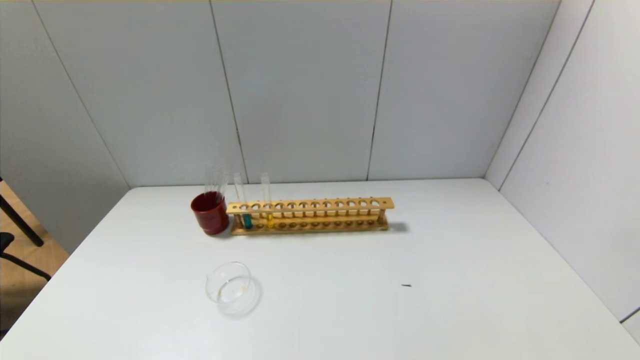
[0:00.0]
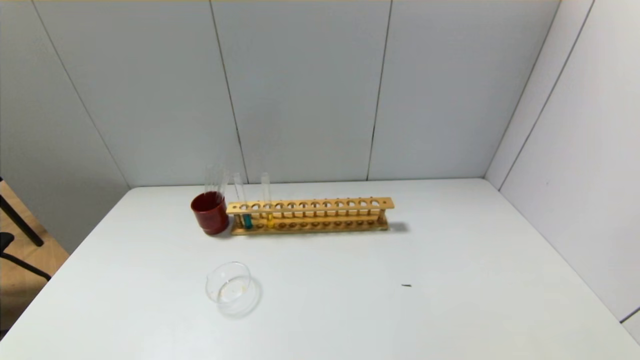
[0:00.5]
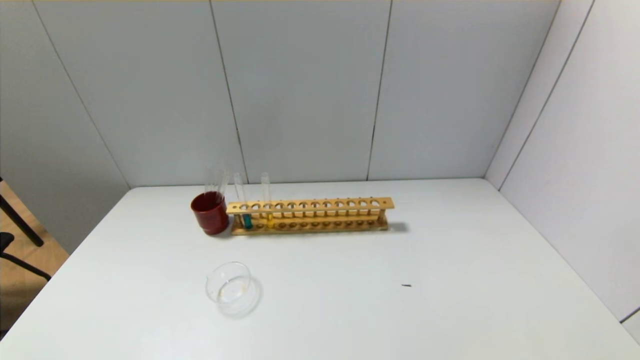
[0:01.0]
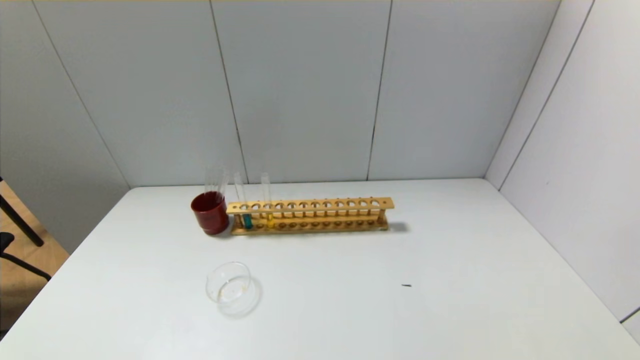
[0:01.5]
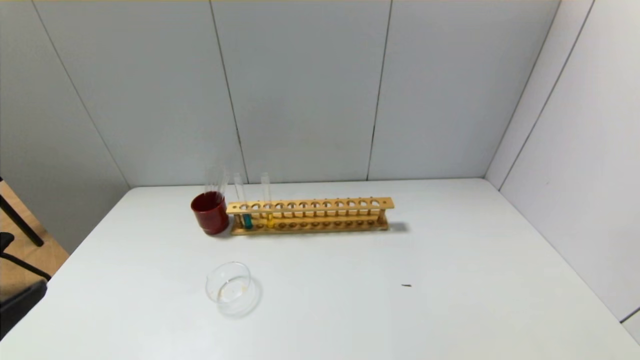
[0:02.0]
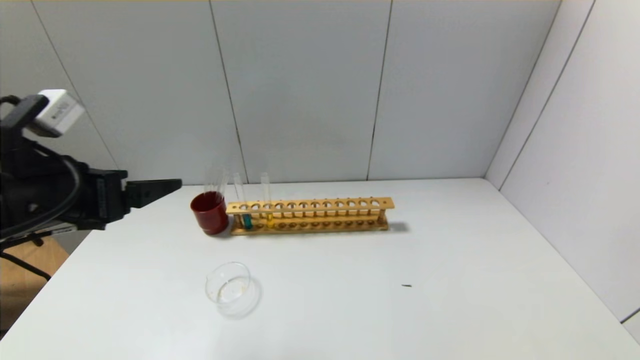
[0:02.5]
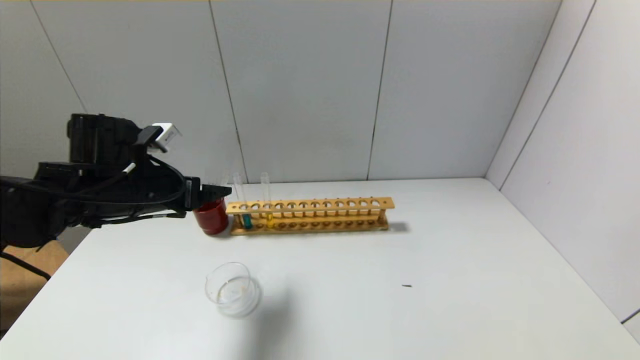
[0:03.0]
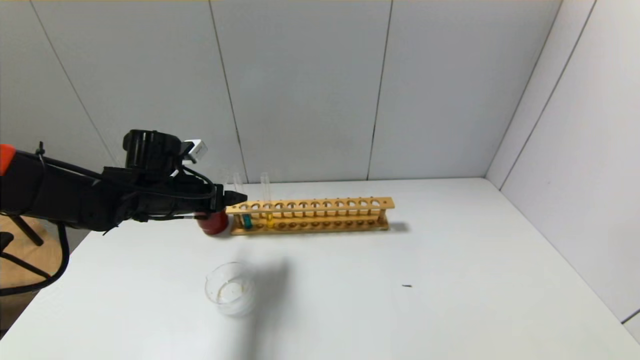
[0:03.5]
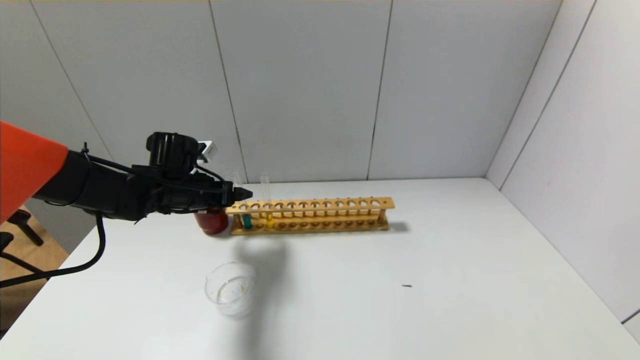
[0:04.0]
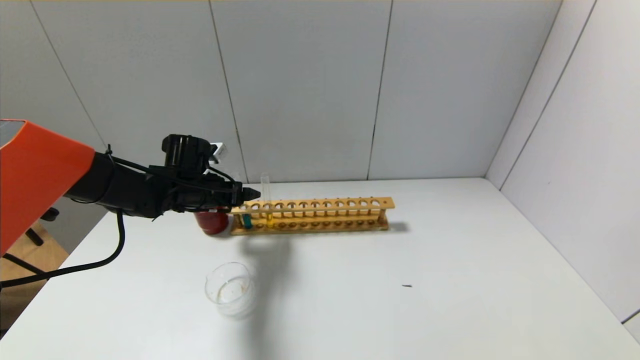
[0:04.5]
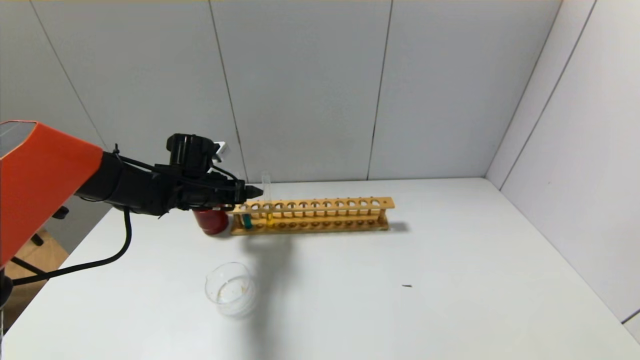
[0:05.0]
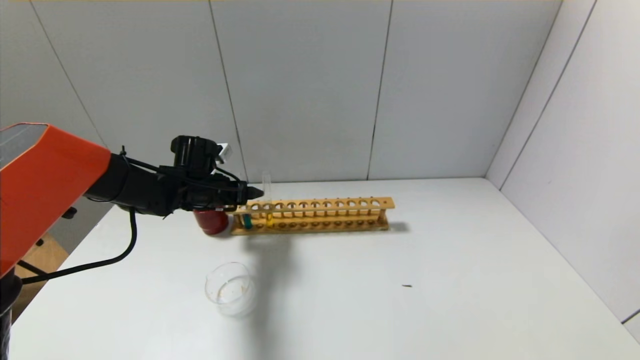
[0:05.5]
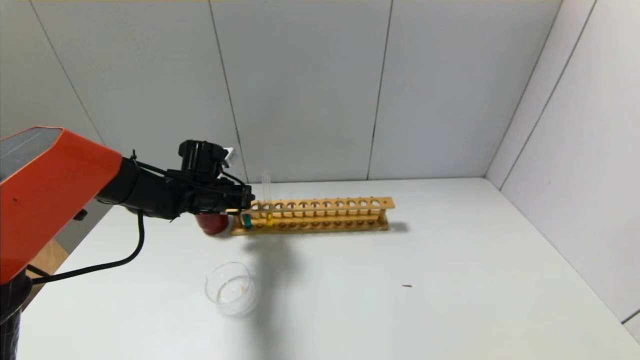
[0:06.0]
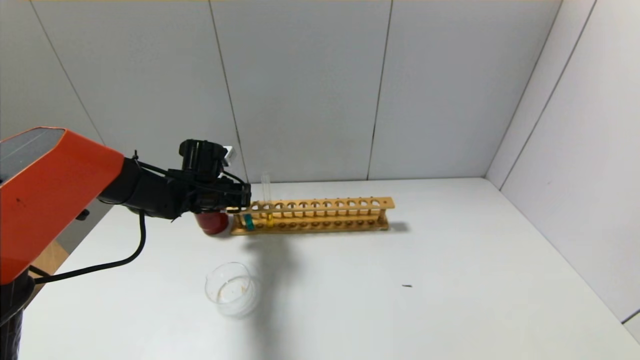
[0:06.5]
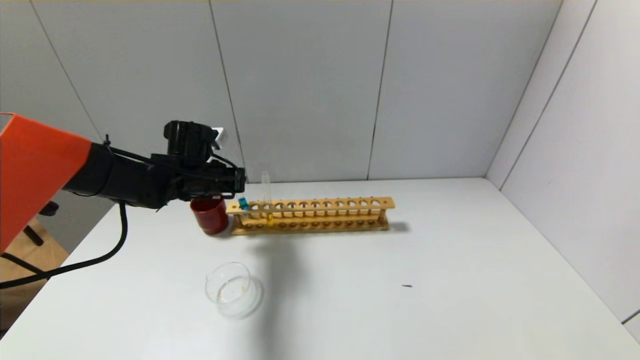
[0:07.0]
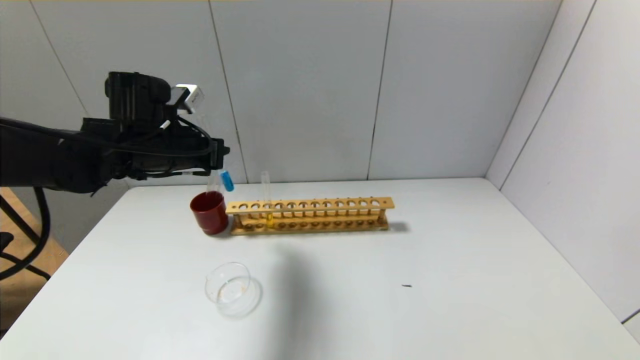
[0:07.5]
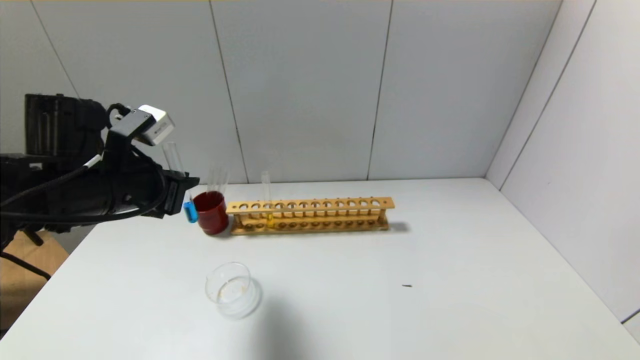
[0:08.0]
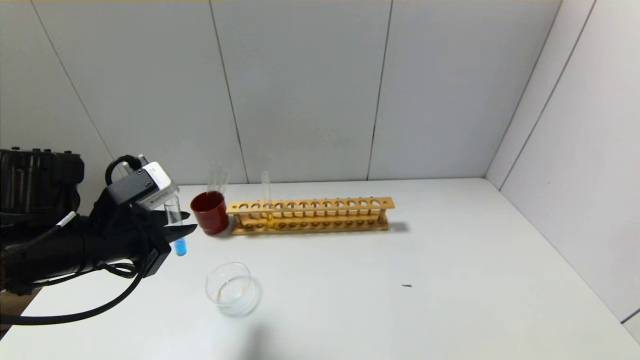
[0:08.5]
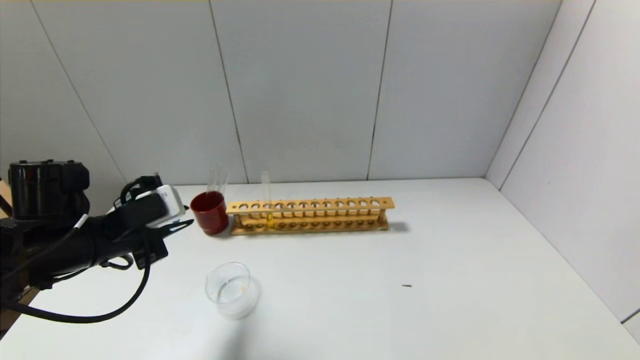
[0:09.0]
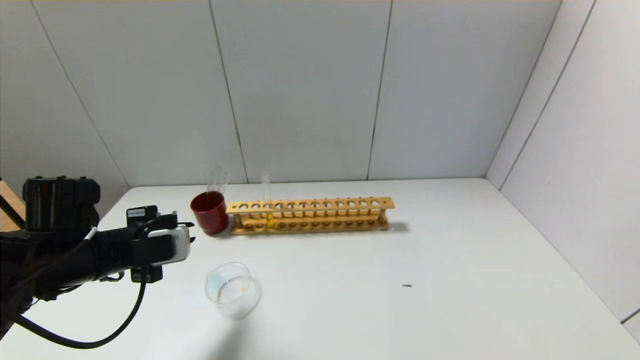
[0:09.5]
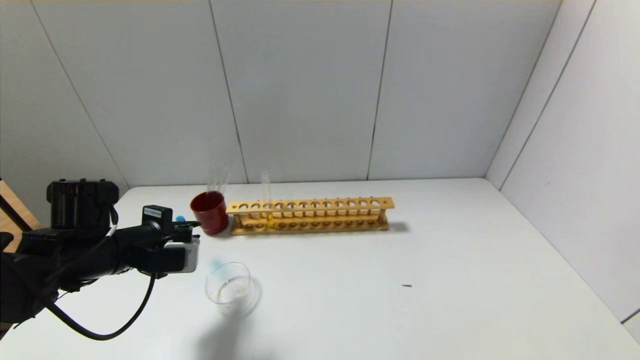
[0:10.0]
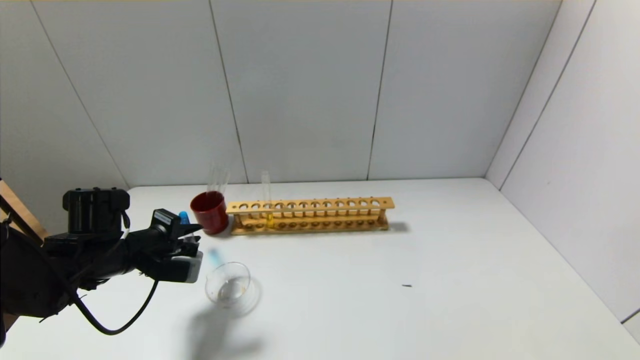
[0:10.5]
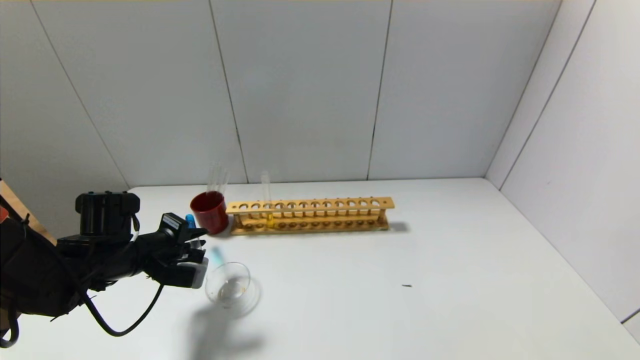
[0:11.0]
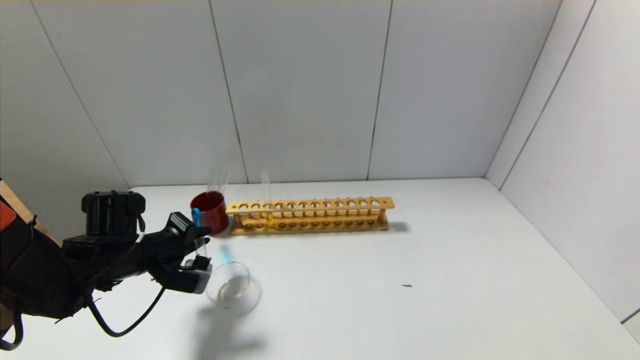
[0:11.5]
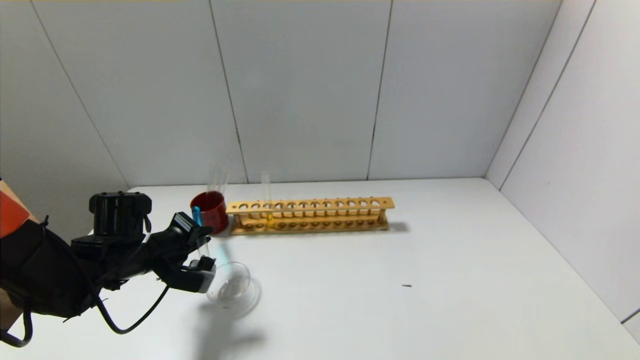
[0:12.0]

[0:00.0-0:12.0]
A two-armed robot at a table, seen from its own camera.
Step, 0:00.0 to 0:06.0: Grasp the blue reagent with the left gripper.
0:02.0 to 0:04.0: The left gripper heads forward, covering approximately 35 cm.
0:04.0 to 0:06.0: The left gripper closes up.
0:06.0 to 0:08.0: The left gripper shifts some 20 cm backward and upward.
0:08.0 to 0:10.0: The left gripper heads downward, covering some 10 cm.
0:10.0 to 0:12.0: The left gripper ends up some 5 cm from where it was.

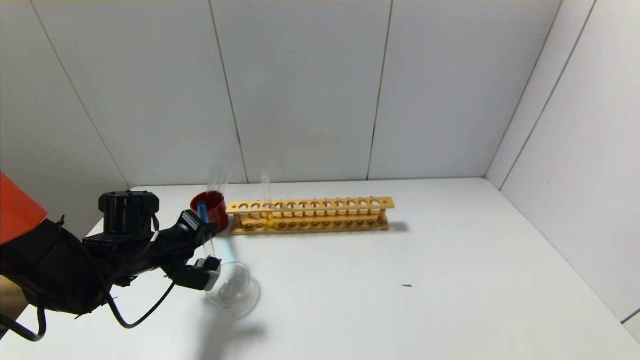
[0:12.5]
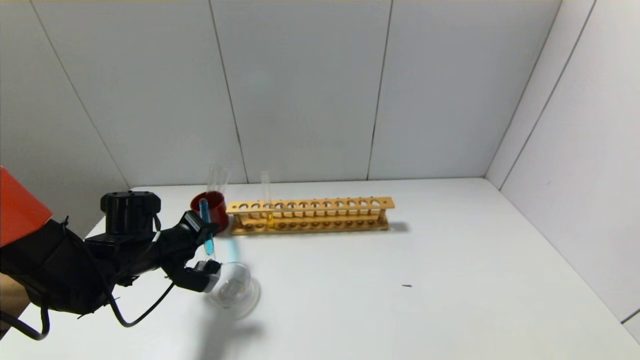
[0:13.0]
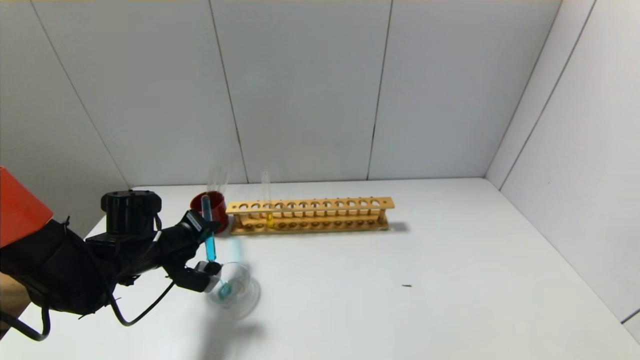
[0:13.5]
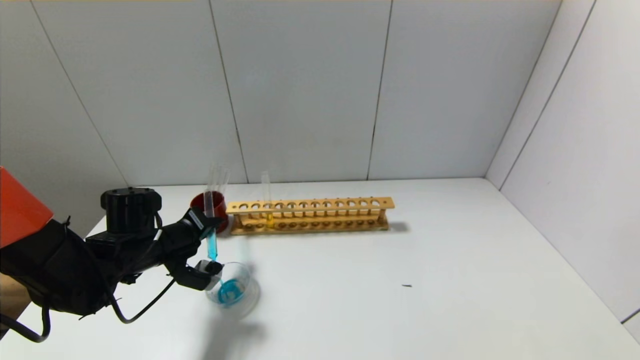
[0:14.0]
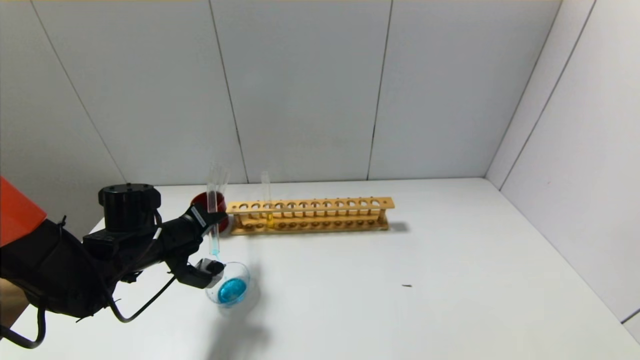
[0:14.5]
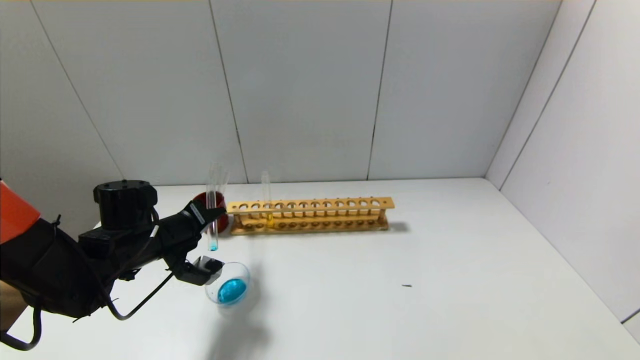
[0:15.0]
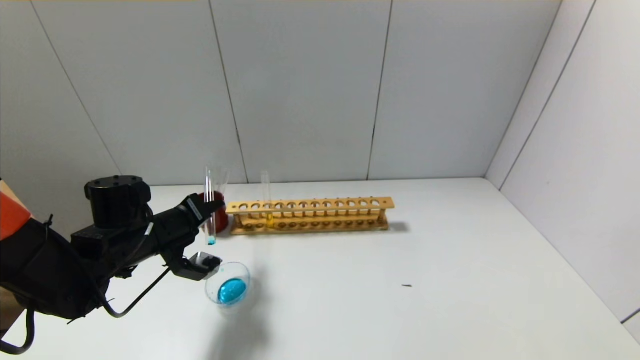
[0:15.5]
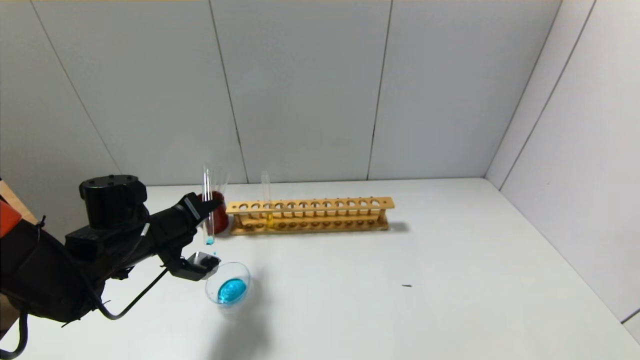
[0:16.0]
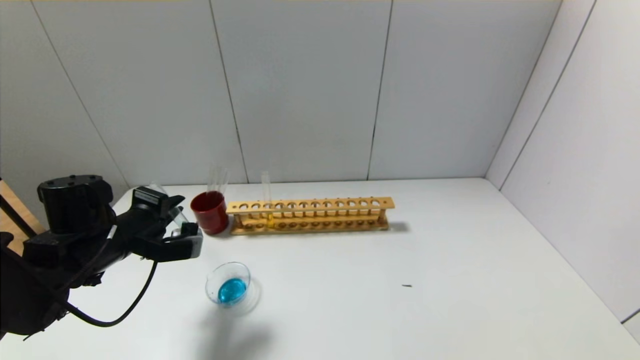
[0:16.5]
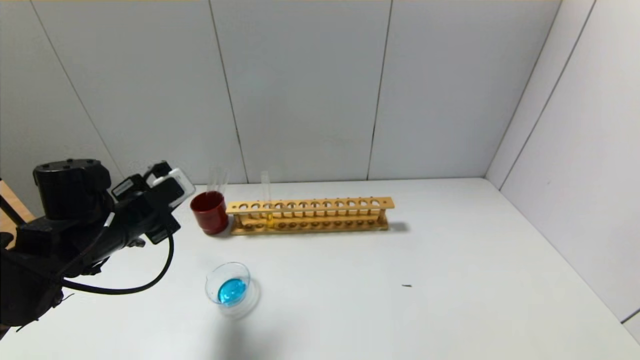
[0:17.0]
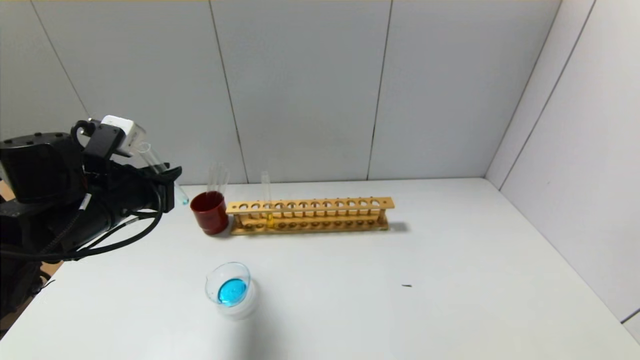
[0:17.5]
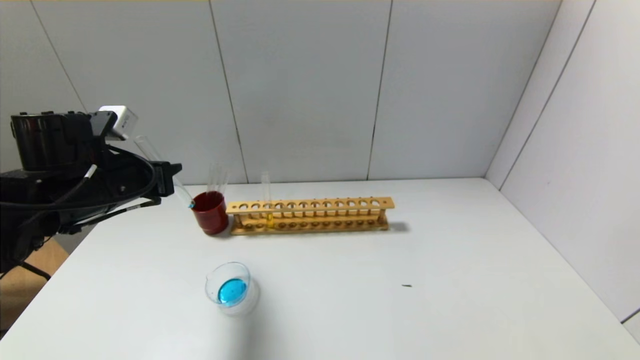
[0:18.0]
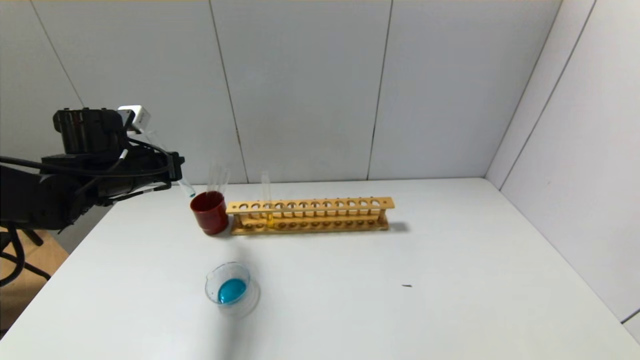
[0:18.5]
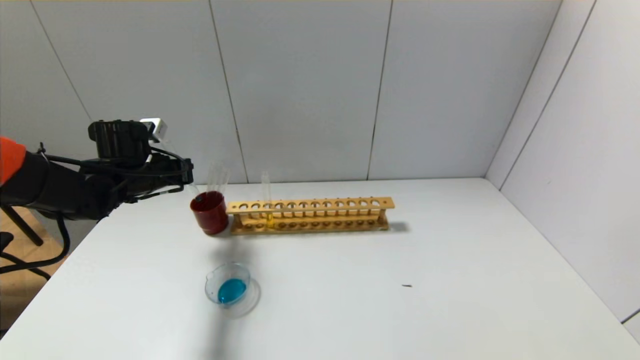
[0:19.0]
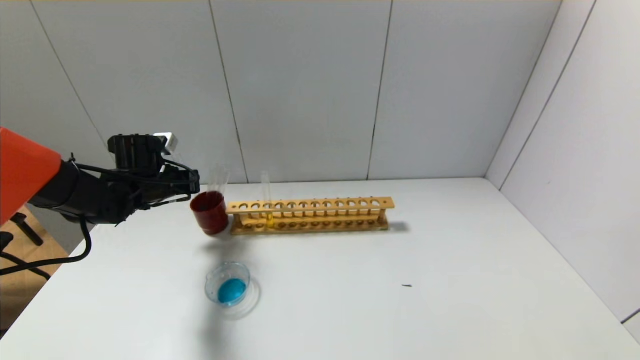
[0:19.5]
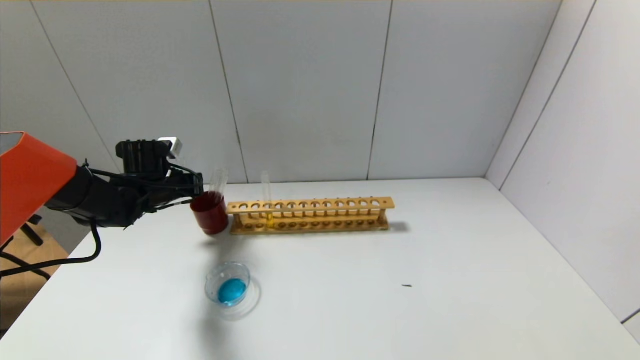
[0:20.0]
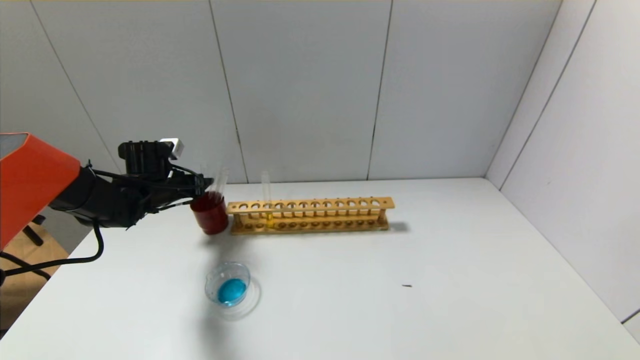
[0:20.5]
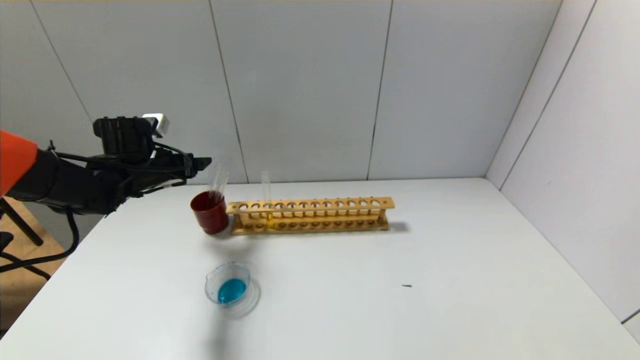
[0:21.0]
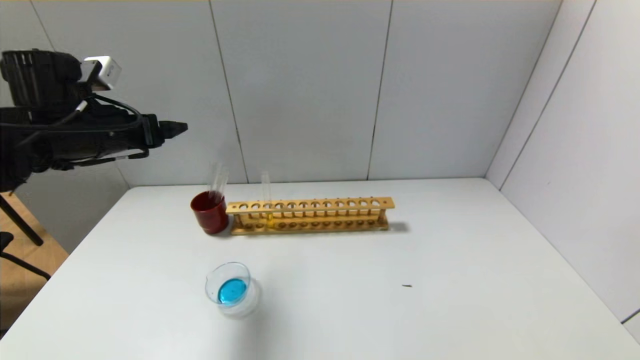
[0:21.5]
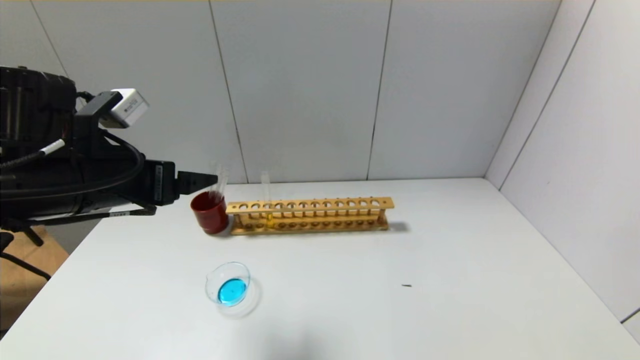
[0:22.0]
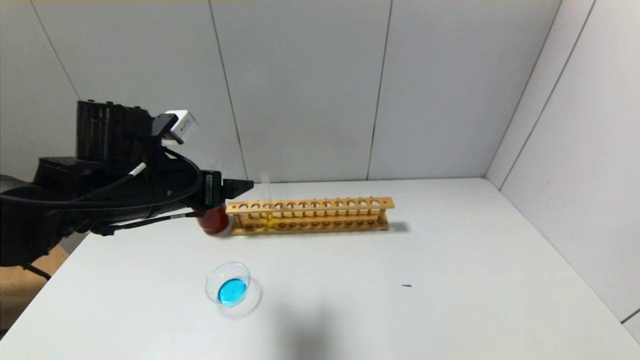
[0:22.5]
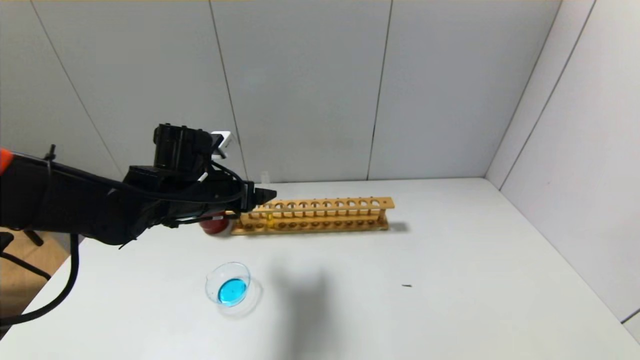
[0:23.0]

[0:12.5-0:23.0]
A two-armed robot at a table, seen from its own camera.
Step, 0:12.5 to 0:16.0: Pour the blue reagent into the graduated cylinder with the left gripper.
Step, 0:16.5 to 0:20.5: Place the test tube into the brown cup with the left gripper.
0:12.5 to 0:14.5: The grippers make only small movements.
0:14.5 to 0:16.5: The left gripper ends up approximately 5 cm from where it was.
0:16.5 to 0:19.0: The left gripper shifts approximately 10 cm forward.
0:19.0 to 0:21.0: The left gripper opens.
0:21.0 to 0:23.0: The left gripper travels to the right and backward by some 15 cm.
